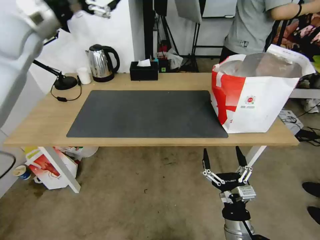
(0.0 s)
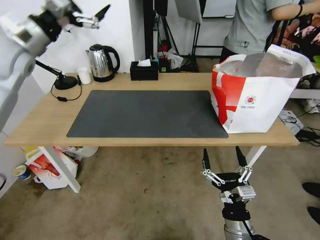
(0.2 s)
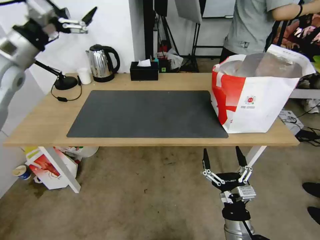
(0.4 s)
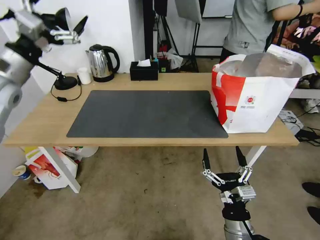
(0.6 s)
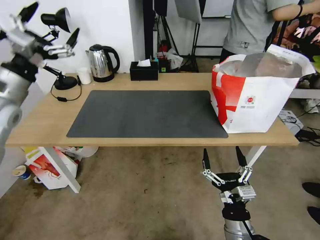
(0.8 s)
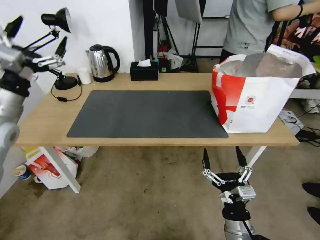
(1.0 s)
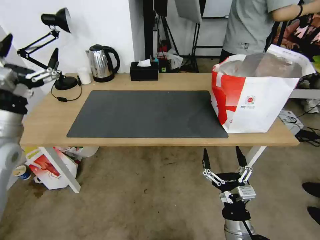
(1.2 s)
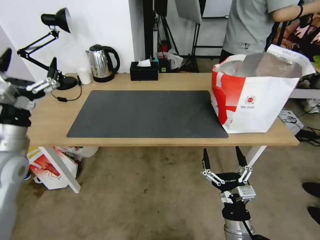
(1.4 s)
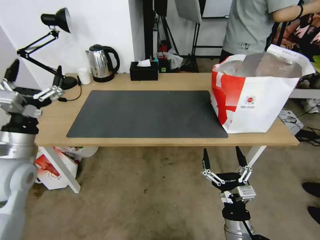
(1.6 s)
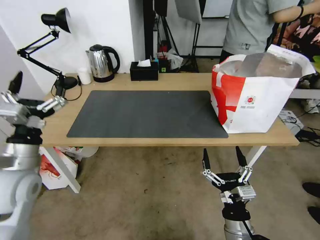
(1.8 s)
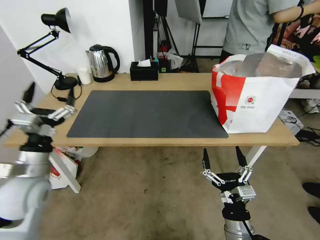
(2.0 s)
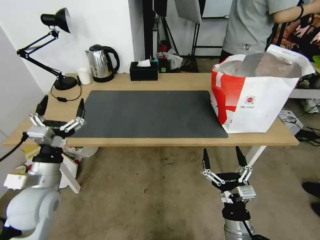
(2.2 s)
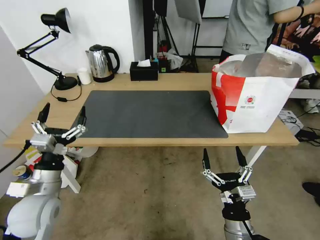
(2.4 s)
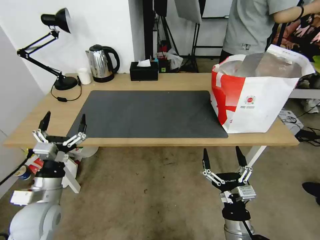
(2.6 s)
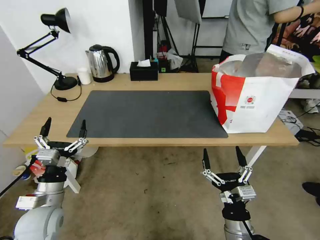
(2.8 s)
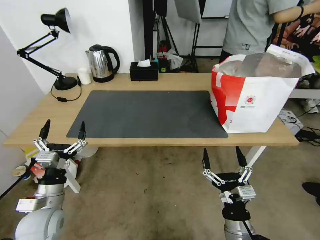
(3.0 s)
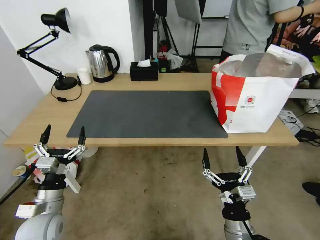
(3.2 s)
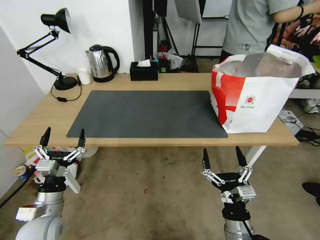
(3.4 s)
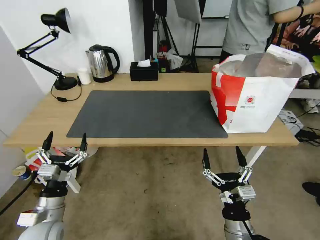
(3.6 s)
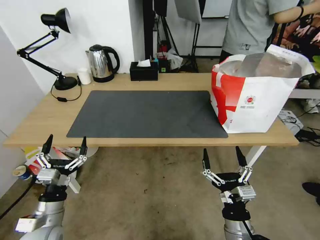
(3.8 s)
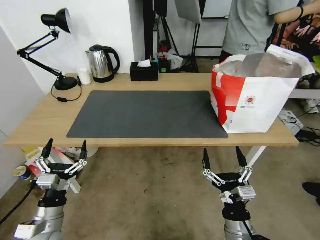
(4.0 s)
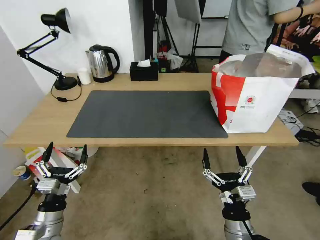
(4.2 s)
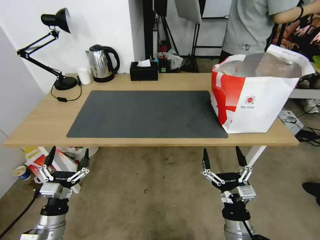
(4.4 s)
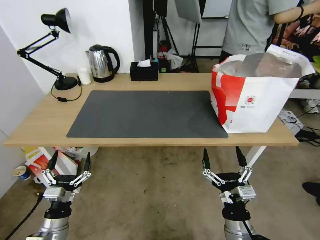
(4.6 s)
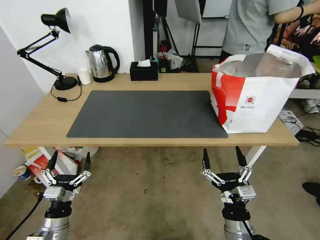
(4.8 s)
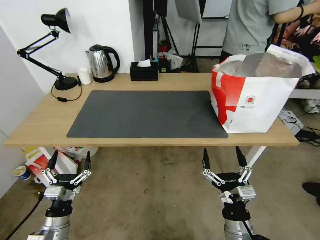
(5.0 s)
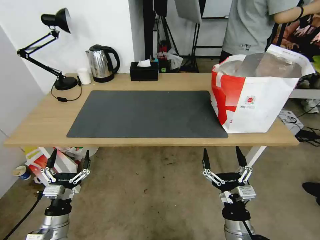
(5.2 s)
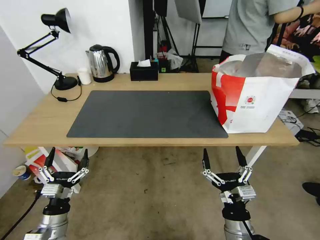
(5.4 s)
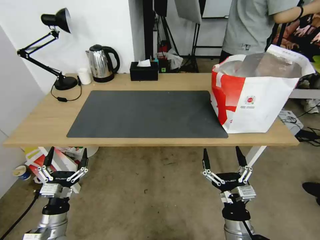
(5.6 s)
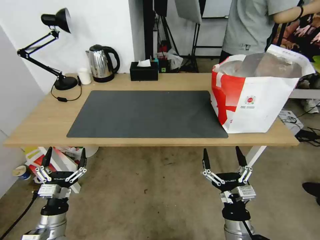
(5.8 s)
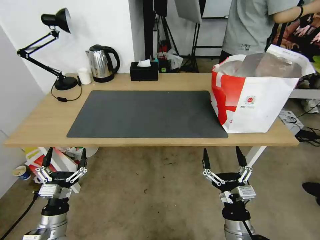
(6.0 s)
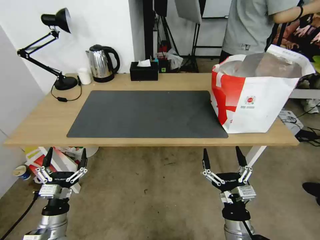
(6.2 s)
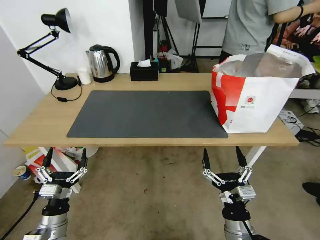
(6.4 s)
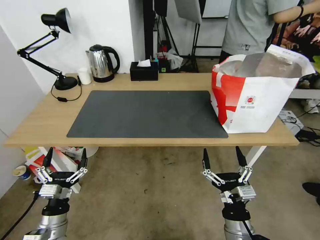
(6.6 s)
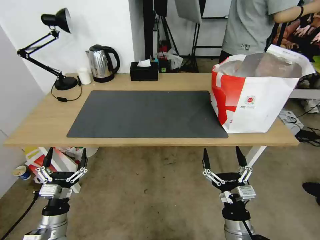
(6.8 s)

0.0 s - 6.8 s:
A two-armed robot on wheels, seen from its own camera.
Task of the whole recording: Pick up the trash from the table and place it into the takeout bag.
0.0 s - 1.4 s: The left gripper heads backward and downward, covering roughly 30 cm.
1.4 s - 2.8 s: The left gripper shifts approximately 20 cm downward and backward.
2.8 s - 4.0 s: The left gripper ends up about 5 cm from where it was.
4.0 s - 5.4 s: The grippers stay close to where they were, moving slightly.
5.4 s - 6.8 s: Both grippers stay put.

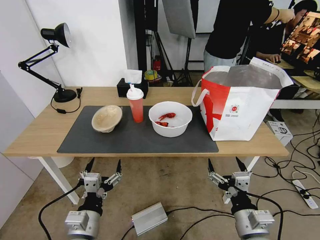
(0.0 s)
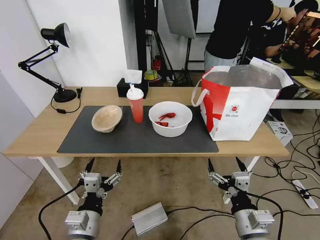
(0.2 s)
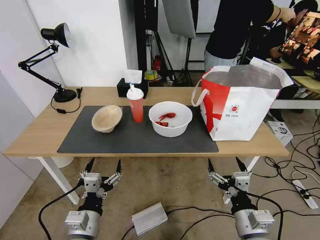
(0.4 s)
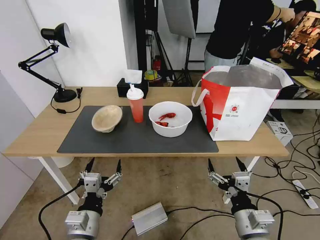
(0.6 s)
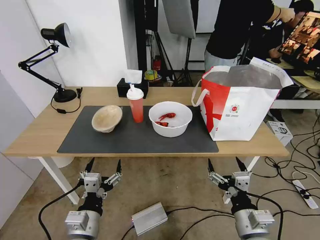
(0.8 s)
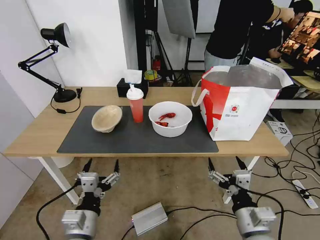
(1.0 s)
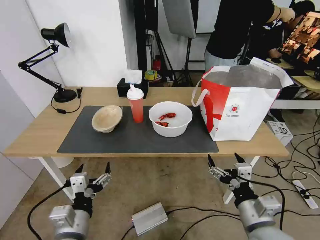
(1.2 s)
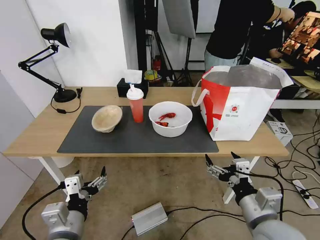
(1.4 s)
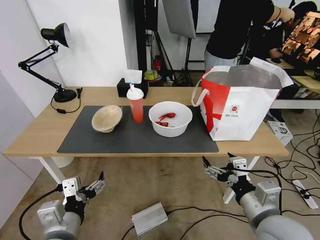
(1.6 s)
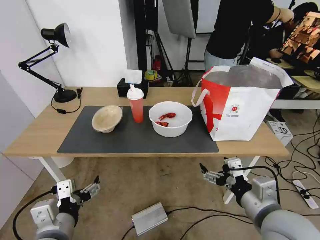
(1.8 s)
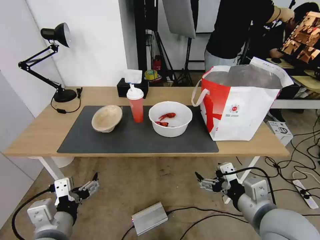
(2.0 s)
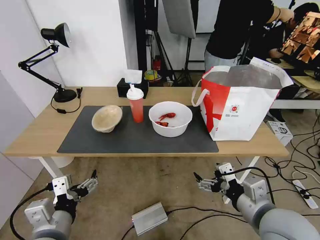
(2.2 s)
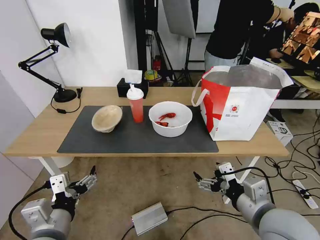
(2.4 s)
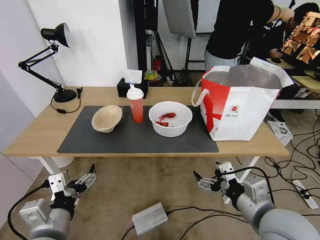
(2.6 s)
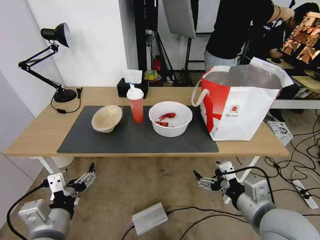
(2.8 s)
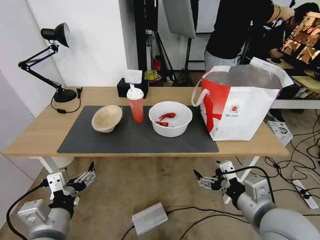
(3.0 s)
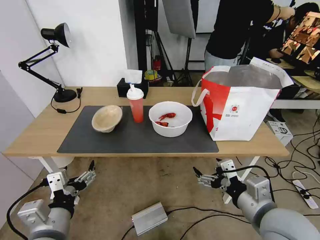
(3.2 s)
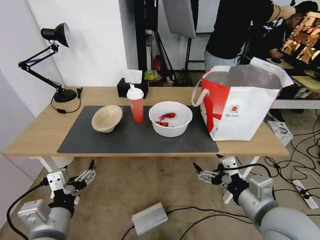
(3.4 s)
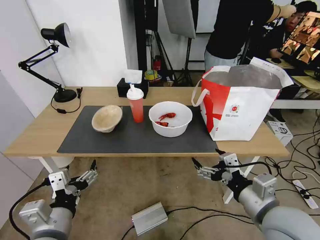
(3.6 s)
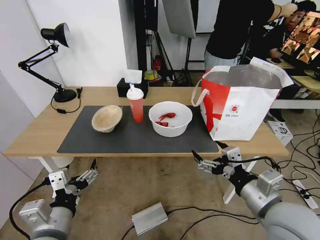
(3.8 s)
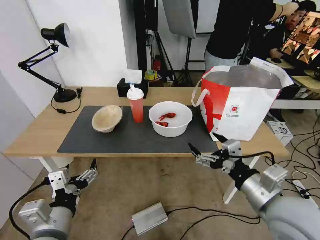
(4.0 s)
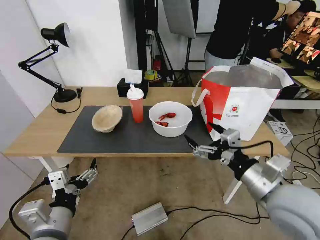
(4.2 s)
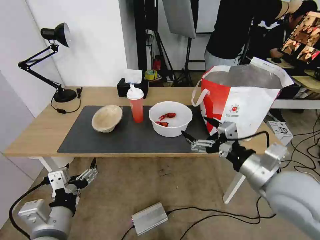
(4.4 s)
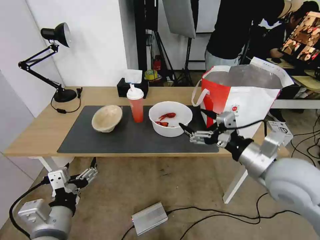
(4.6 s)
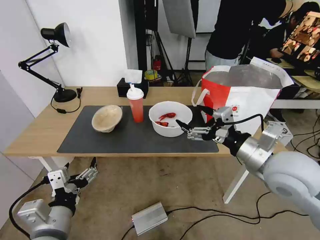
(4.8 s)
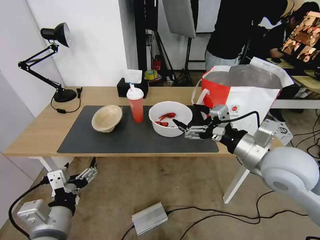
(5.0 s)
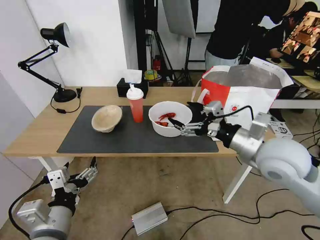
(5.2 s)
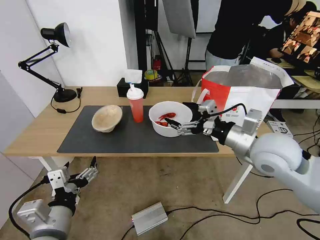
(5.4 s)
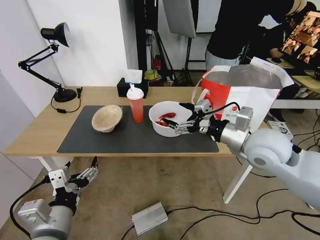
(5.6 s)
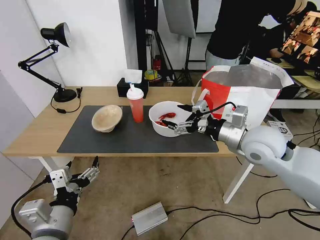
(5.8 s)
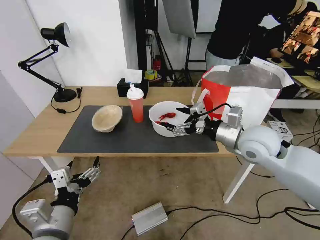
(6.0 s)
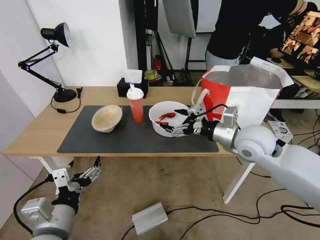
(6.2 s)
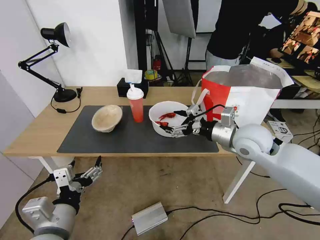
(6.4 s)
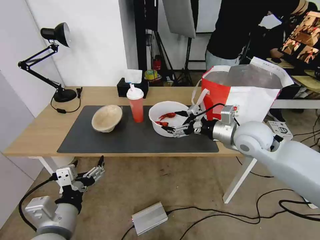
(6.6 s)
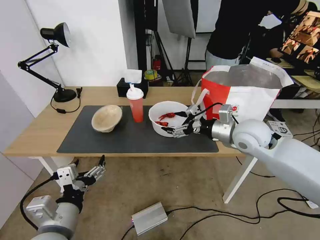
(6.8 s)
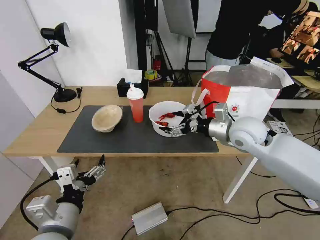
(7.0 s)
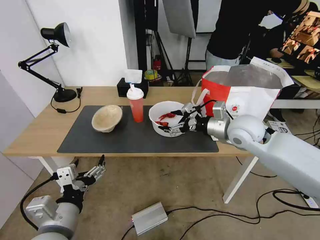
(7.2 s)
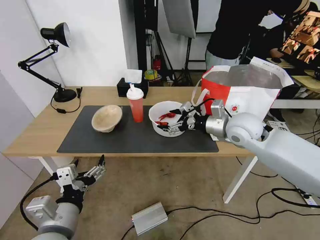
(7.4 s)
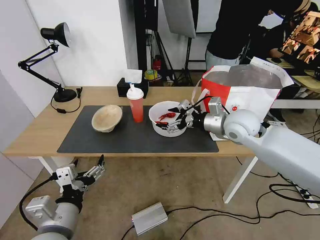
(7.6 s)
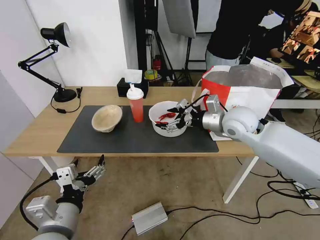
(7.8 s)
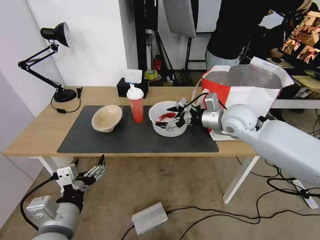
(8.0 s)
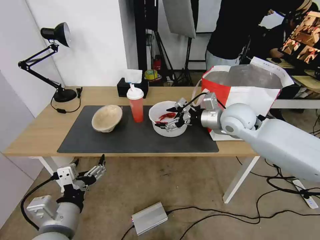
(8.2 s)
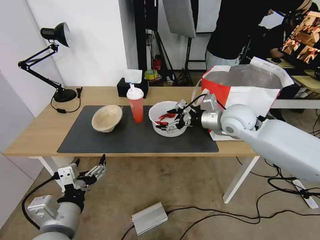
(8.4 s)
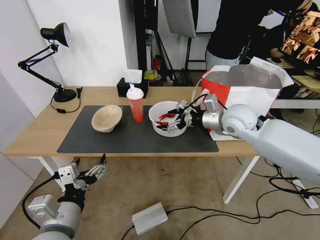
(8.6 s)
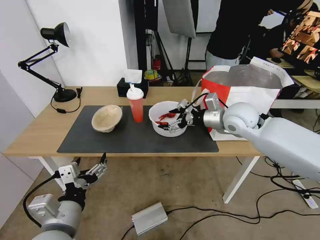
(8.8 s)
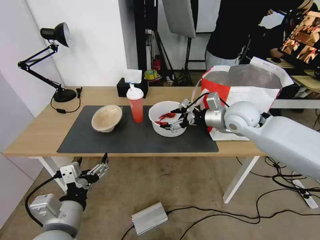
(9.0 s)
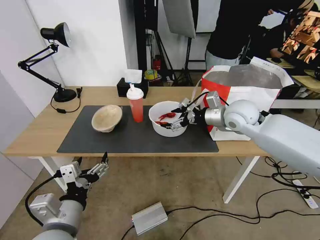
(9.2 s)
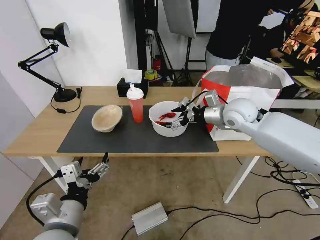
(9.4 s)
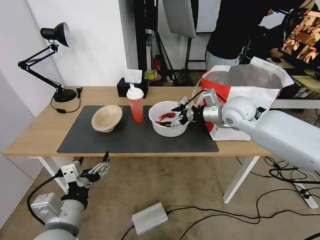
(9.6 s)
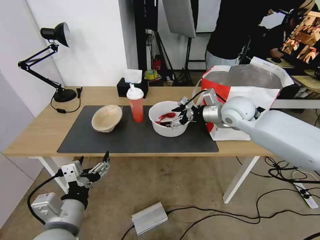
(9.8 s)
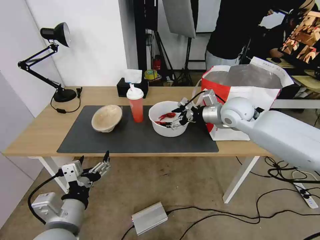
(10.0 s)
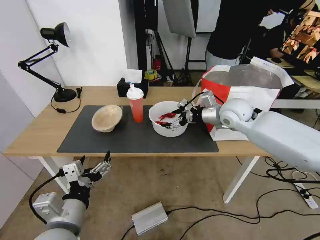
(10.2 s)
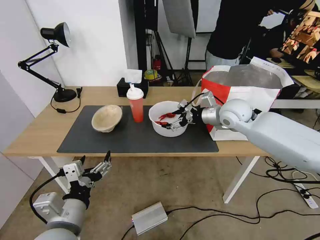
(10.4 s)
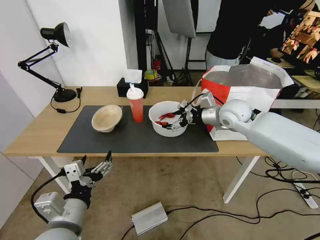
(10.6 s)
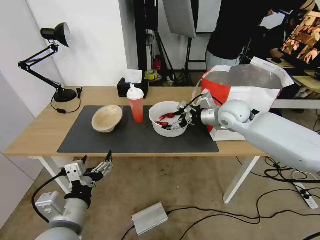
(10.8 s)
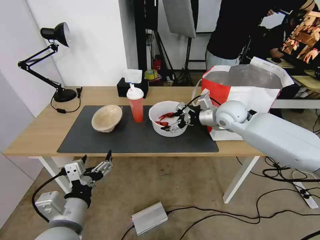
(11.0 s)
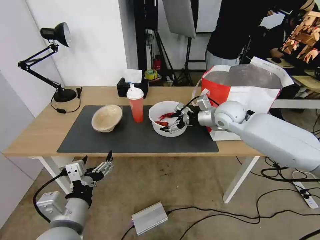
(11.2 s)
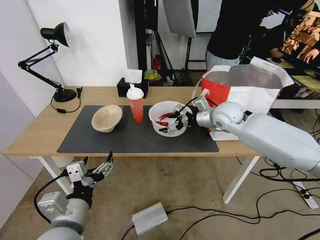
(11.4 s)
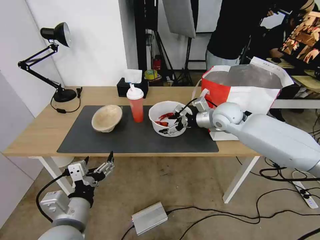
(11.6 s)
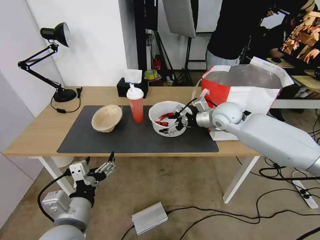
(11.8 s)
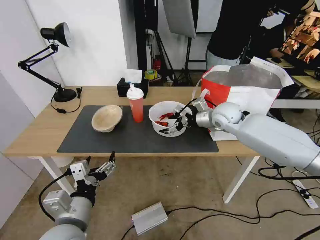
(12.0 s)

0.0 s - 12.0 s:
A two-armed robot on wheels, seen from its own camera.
Task of the whole recording: Pick up the trash from the table and place it into the takeout bag.
1.6 s - 3.0 s: The grippers stay close to where they were, moving slightly.
3.0 s - 4.4 s: The right gripper moves forward and upward, some 10 cm.
4.4 s - 6.0 s: The right gripper shifts approximately 15 cm forward.
6.0 s - 7.6 s: The right gripper travels forward by about 5 cm.
7.6 s - 9.0 s: There are only small adjustments of the grippers.
9.0 s - 10.4 s: The grippers make only small movements.
10.4 s - 12.0 s: The grippers stay close to where they were, moving slightly.

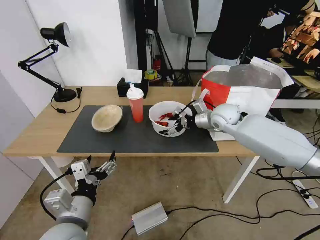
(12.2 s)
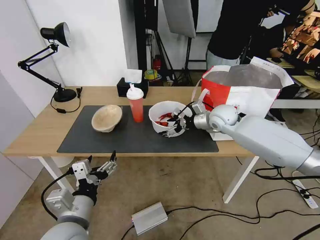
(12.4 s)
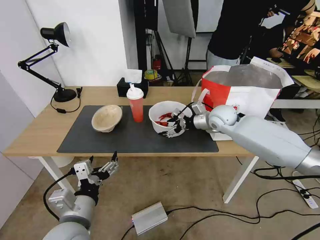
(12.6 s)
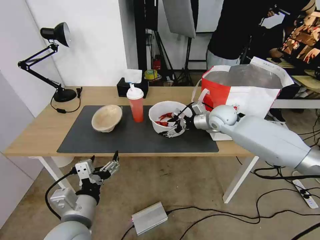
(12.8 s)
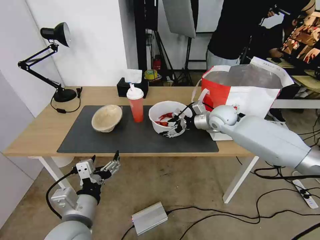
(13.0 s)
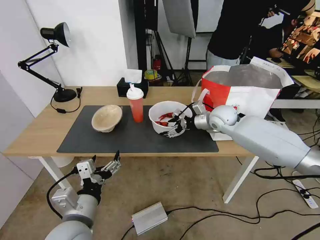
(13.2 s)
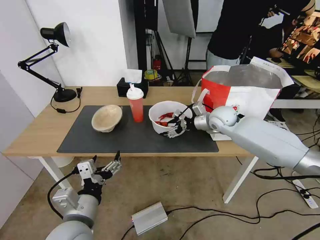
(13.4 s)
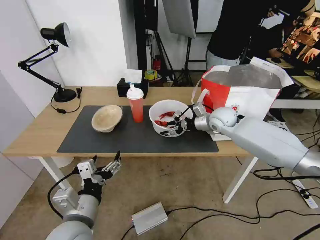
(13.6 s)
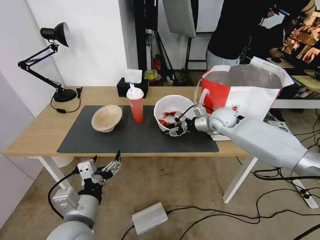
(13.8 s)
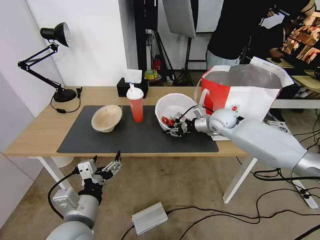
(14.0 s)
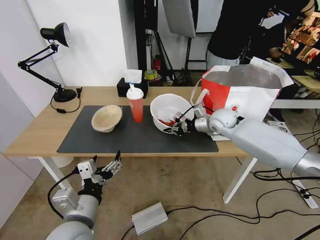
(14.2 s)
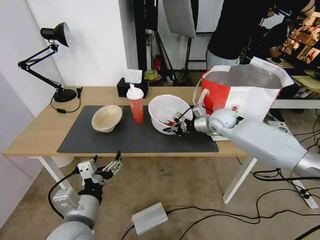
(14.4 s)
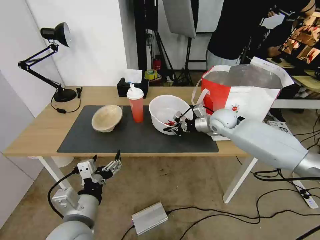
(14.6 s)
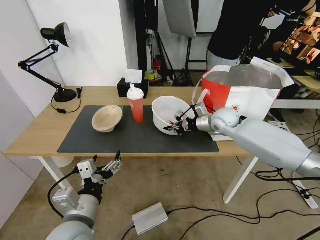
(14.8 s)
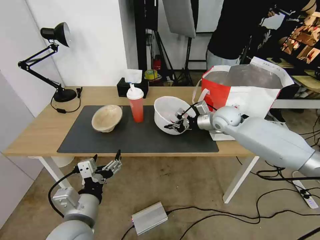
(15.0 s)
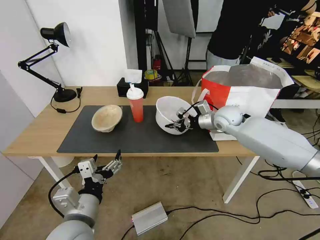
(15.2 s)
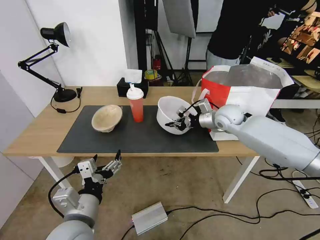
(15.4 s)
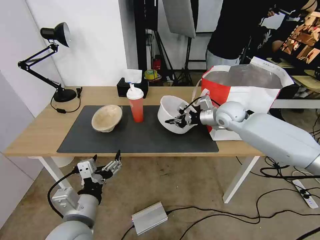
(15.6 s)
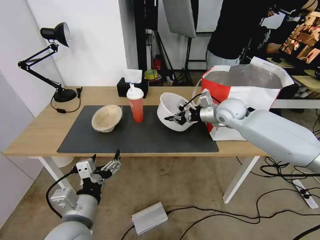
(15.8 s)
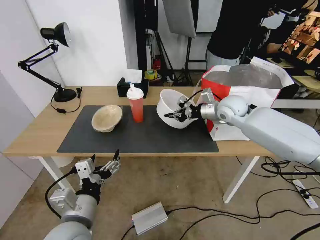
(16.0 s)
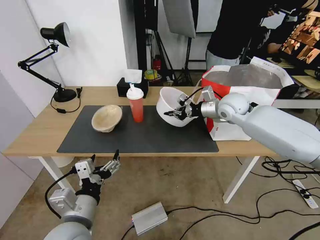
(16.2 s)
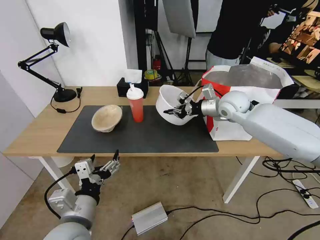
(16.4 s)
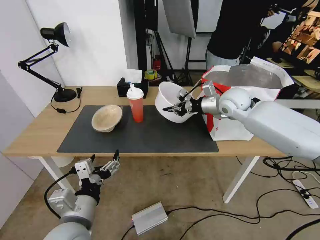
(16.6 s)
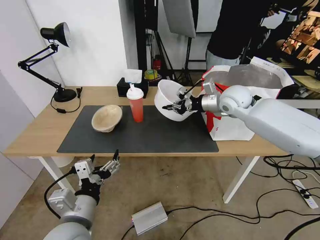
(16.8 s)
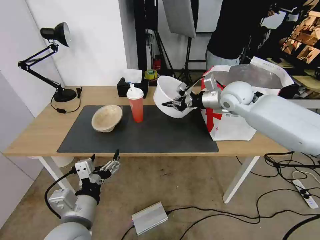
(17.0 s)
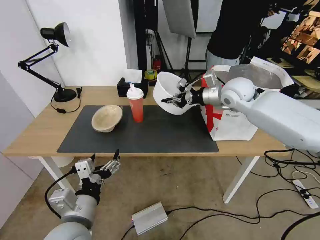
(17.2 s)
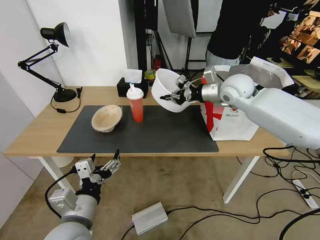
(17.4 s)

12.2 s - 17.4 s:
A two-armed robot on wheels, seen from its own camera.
Task of the whole recording: Pick up the trash from the table and place it into the takeout bag.
12.2 s - 14.0 s: The right gripper closes.
14.0 s - 15.6 s: There are only small adjustments of the grippers.
15.6 s - 17.4 s: The right gripper travels upward by some 10 cm.
